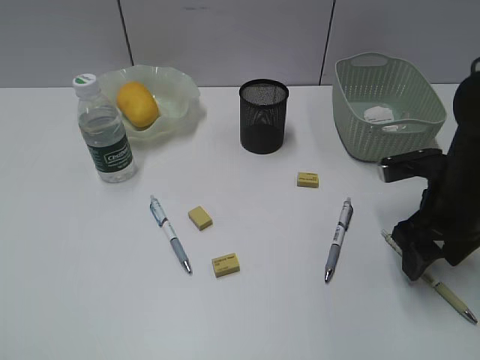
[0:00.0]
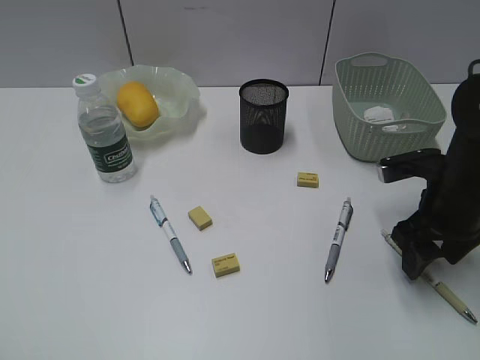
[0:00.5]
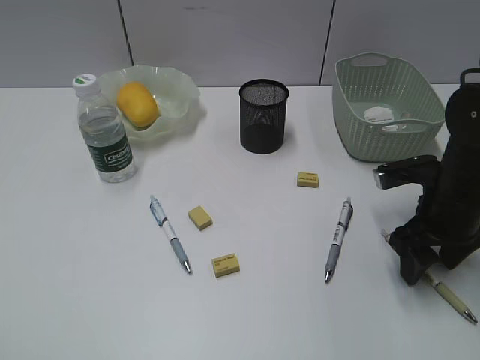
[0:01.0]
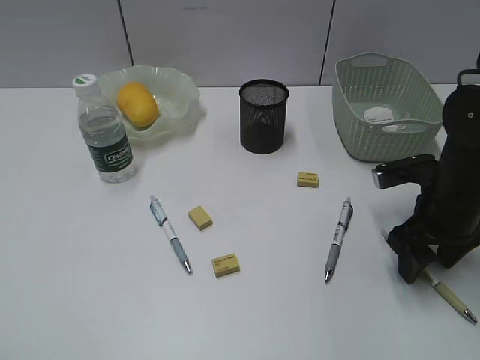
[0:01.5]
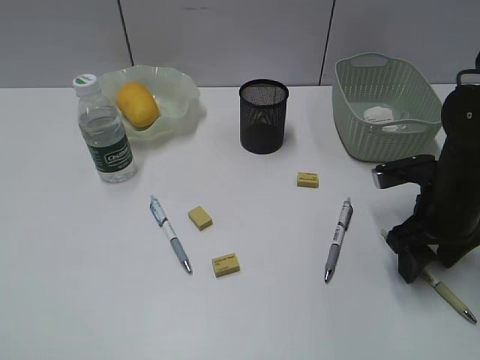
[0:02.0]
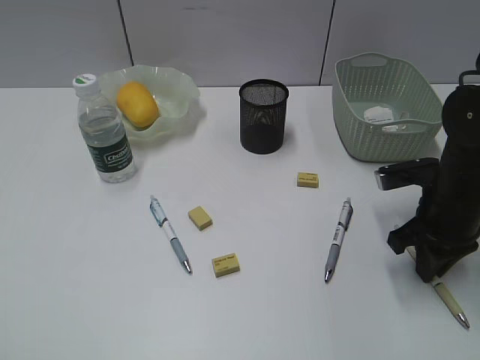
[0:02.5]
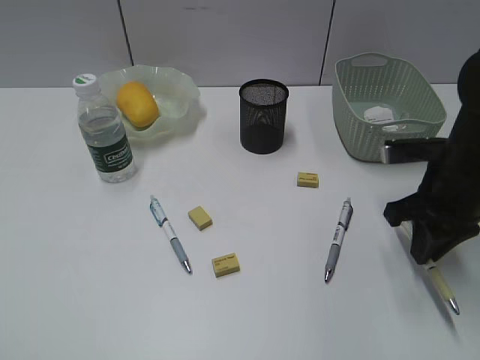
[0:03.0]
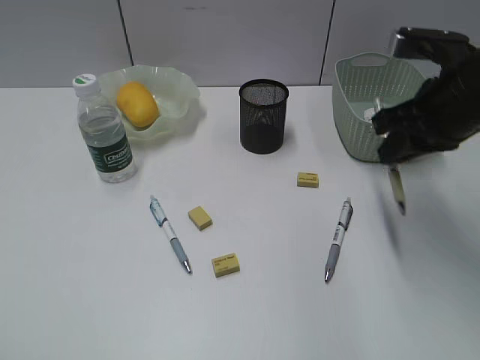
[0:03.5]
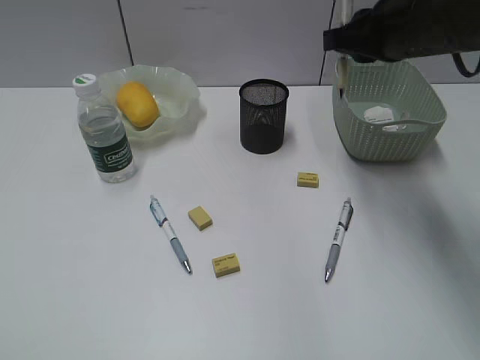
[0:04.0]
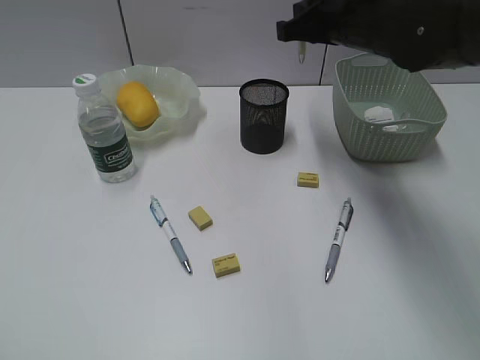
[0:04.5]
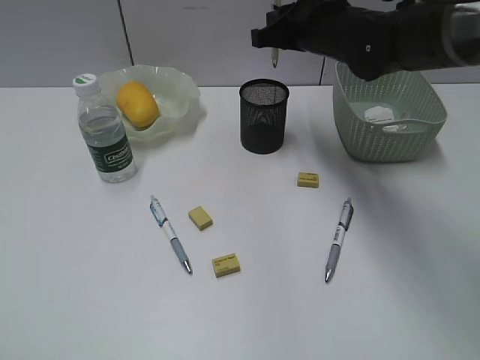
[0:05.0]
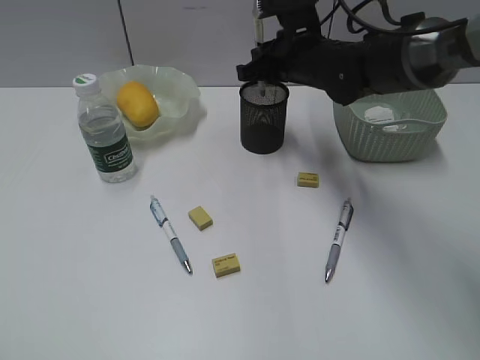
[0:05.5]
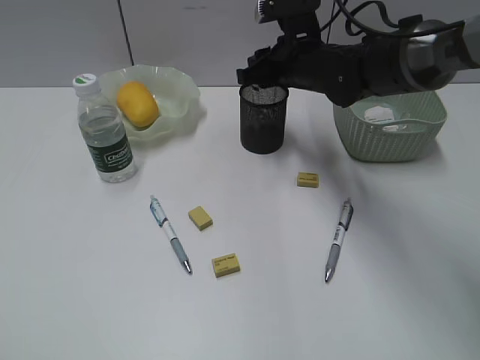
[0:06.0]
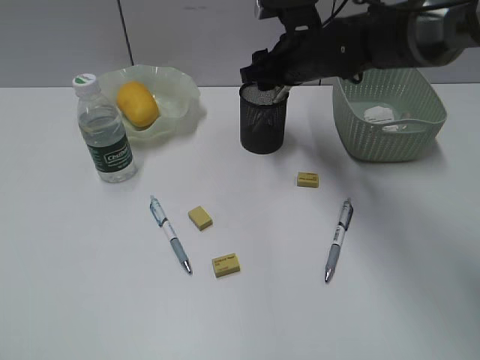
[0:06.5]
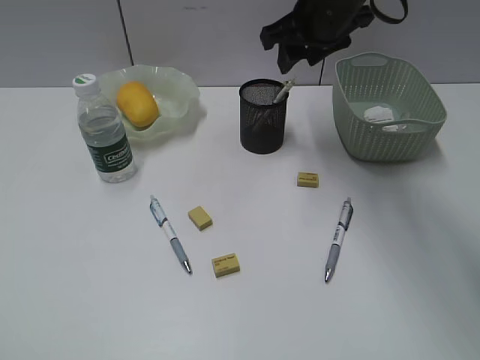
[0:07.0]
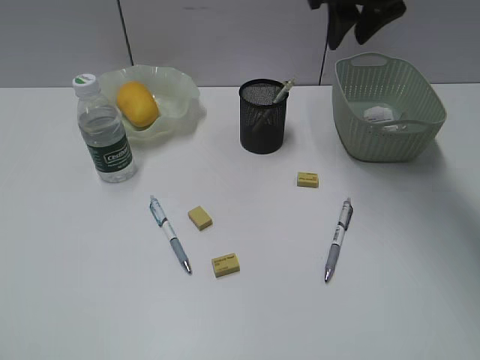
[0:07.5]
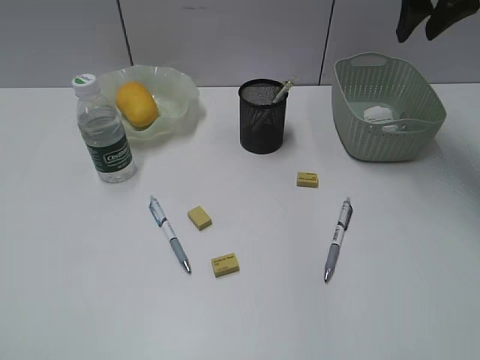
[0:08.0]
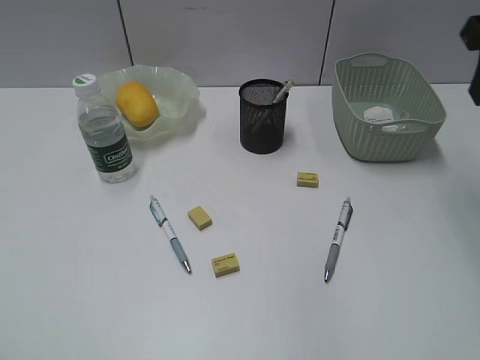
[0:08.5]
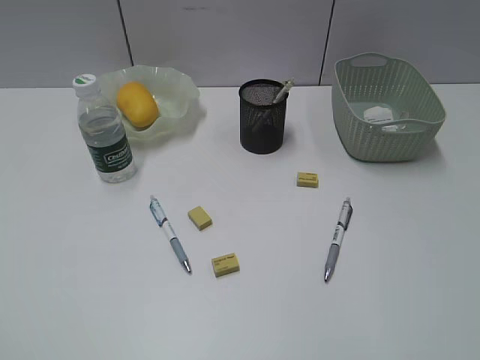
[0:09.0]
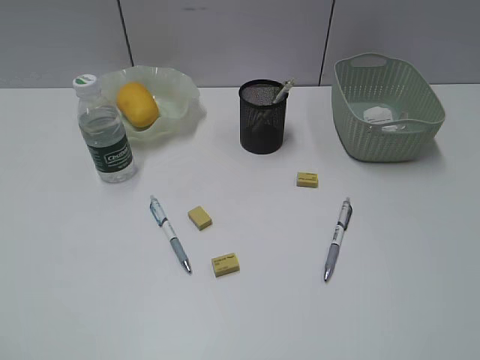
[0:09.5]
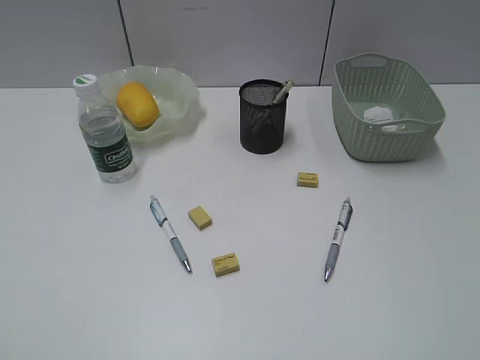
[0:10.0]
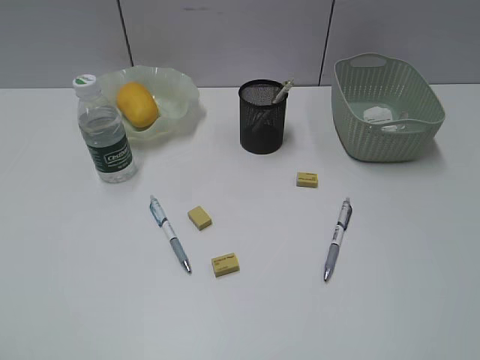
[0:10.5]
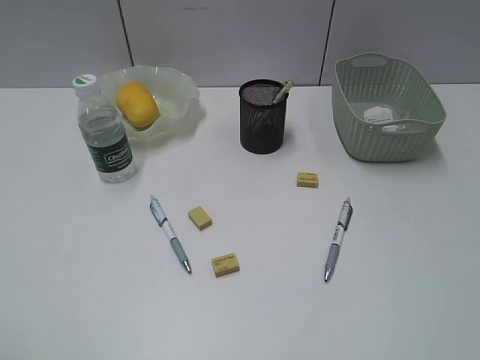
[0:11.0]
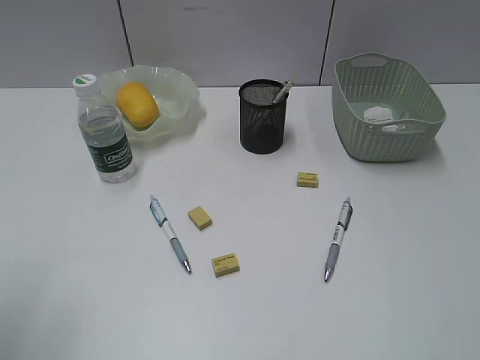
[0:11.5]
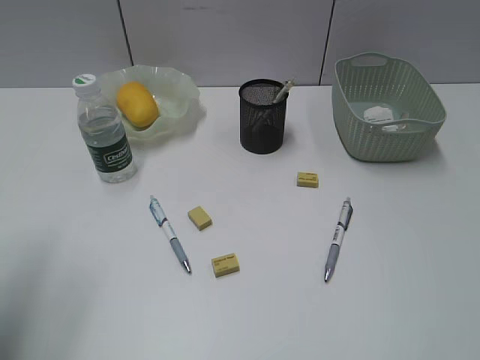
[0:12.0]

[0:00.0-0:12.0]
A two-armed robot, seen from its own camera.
Step, 0:00.0 to 0:02.5: Grasp the yellow pen with right gripper.
Step, 0:03.0 to 0:06.0: Place the yellow pen in pen holder with right gripper.
0:00.0 to 0:02.0: There are only small adjustments of the grippers.
0:02.0 to 0:04.0: The right gripper goes about 15 cm upward, and closes up.
0:04.0 to 0:06.0: The right gripper is displaced downward, forward and to the left by roughly 15 cm, and opens its fingers.
0:06.0 to 0:08.0: The right gripper heads upward and to the right, covering about 20 cm.
0:08.0 to 0:10.0: The right gripper moves backward, approximately 50 cm.
0:10.0 to 0:12.0: The left gripper shifts about 20 cm forward, and opens its fingers.

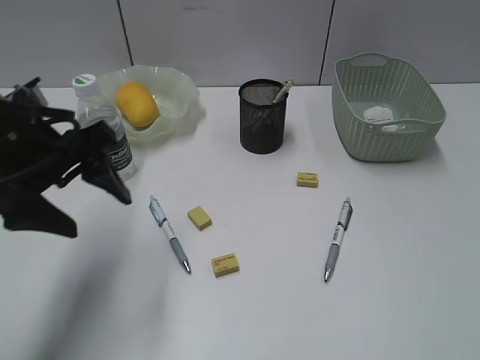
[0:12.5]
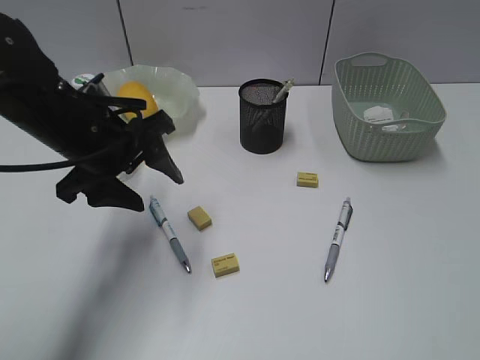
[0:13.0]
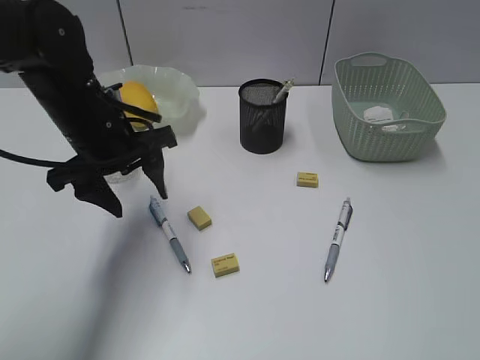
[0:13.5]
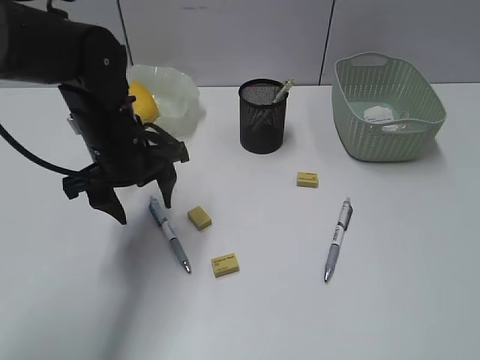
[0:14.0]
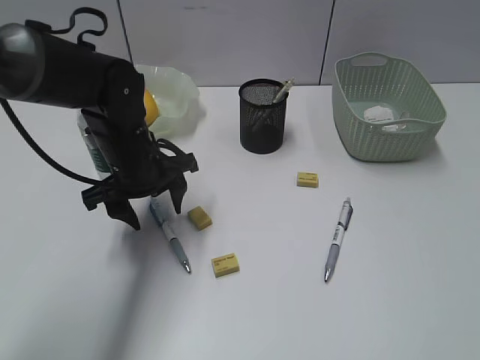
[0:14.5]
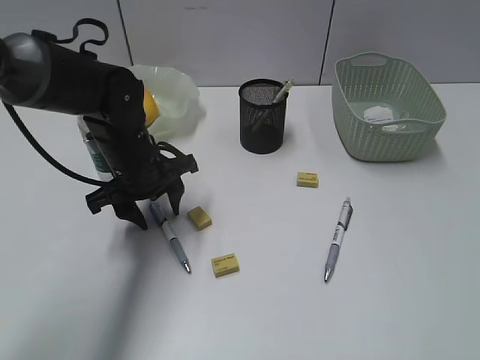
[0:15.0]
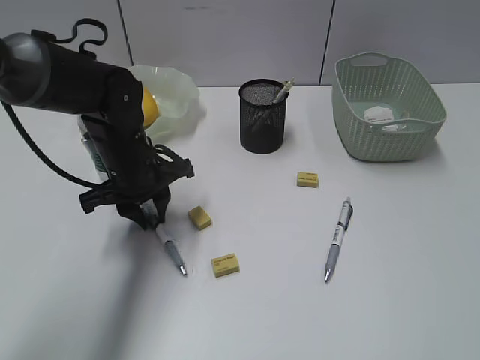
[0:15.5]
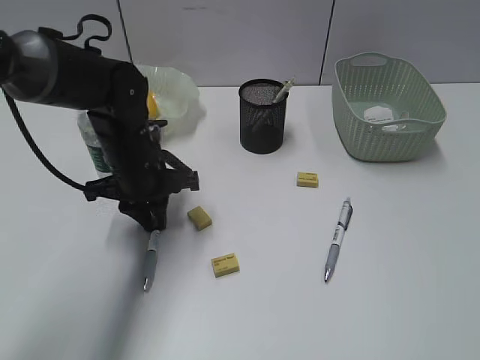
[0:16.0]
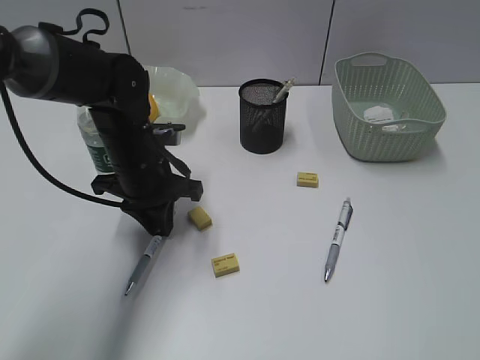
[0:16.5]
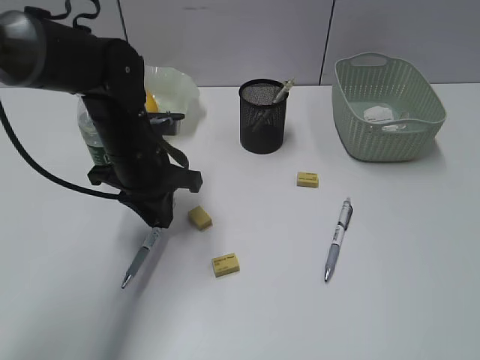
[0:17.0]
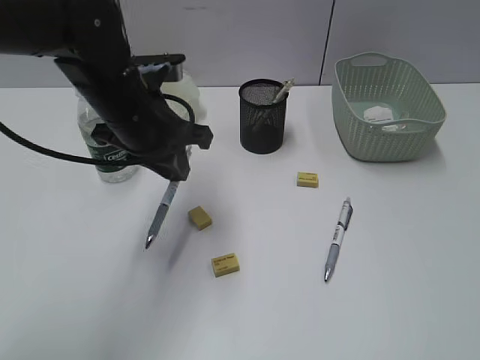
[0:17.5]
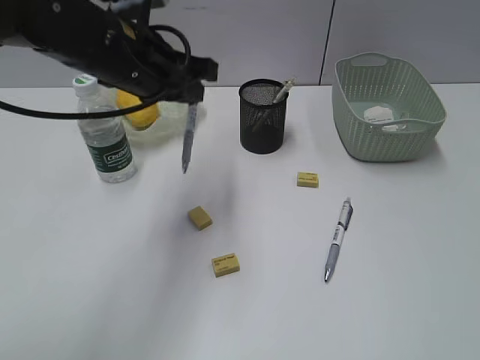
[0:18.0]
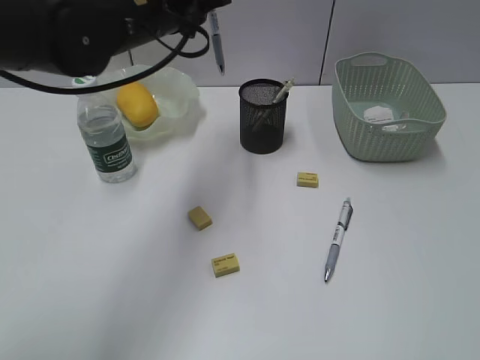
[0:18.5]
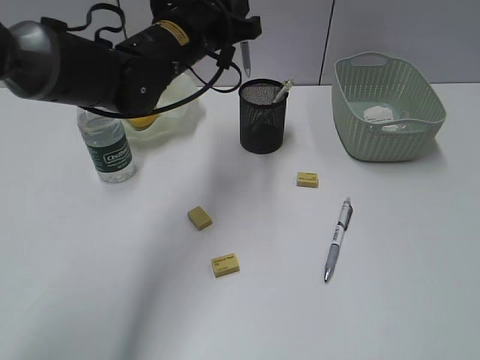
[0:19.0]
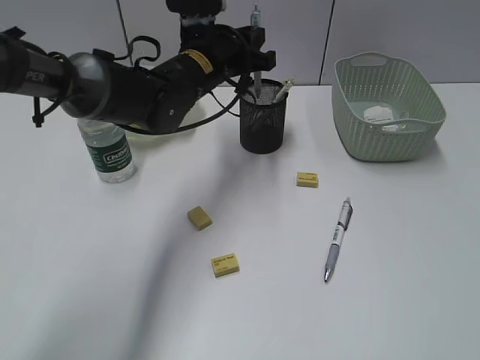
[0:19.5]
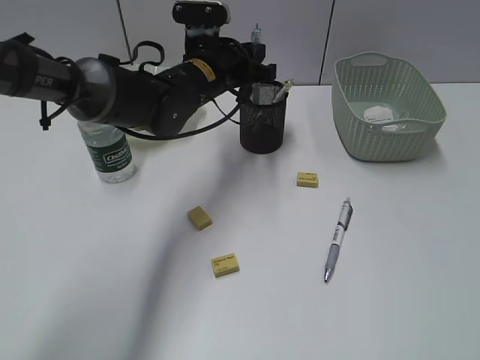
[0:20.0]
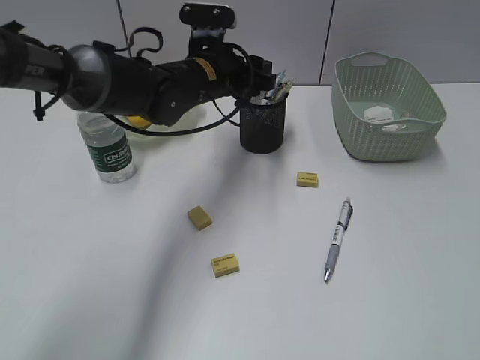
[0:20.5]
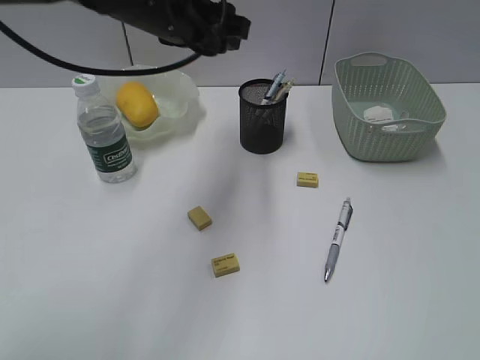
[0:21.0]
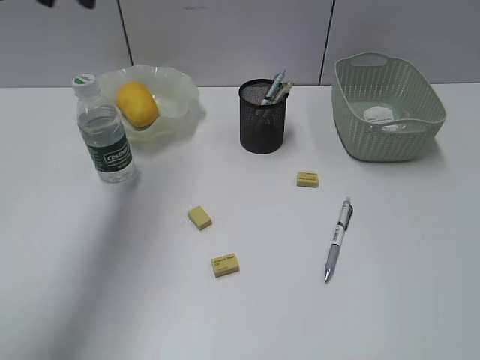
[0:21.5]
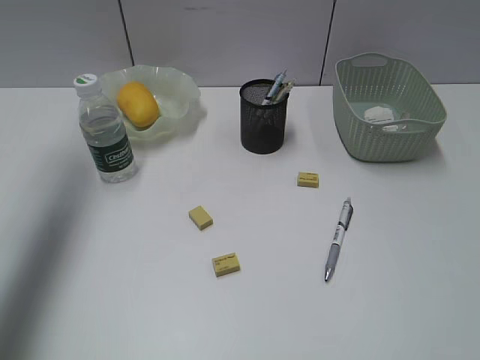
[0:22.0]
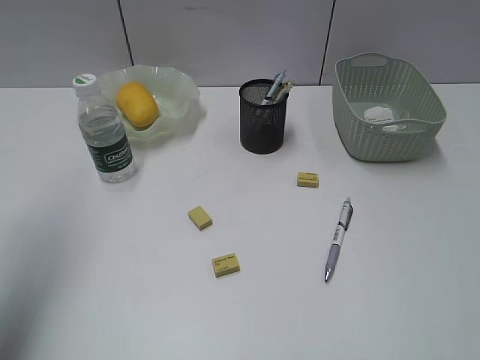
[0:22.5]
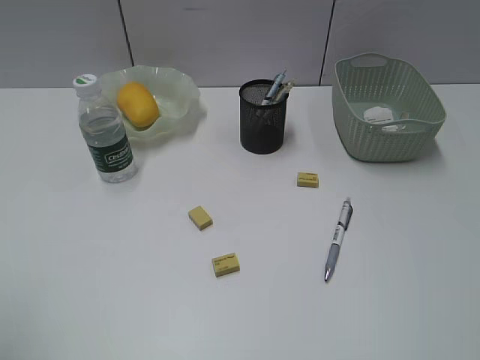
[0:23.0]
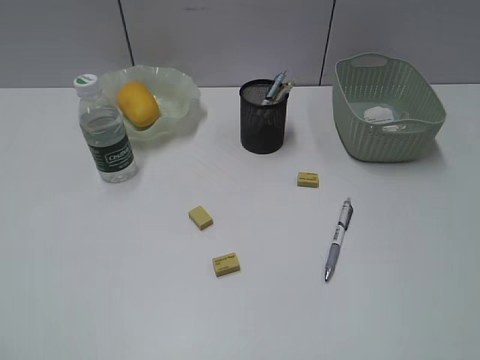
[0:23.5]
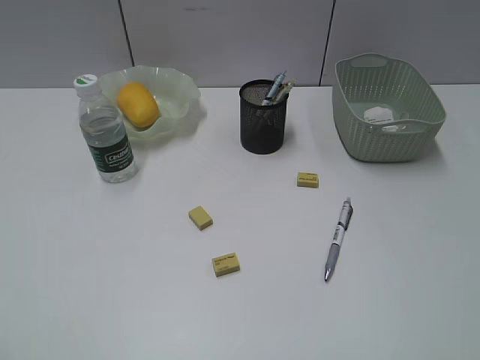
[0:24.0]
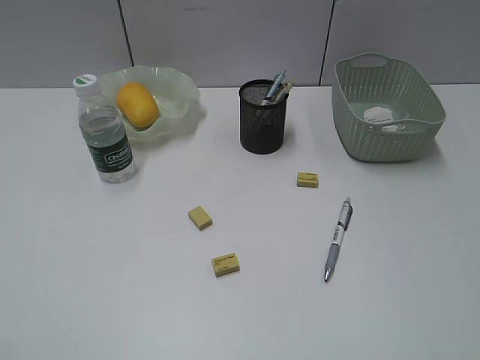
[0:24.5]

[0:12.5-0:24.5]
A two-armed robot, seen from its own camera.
Step, 0:12.5 to 0:16.5: Grasp the blue pen with left gripper.
Step, 0:17.0 to 0:20.0: Place the blue pen in pen holder with left gripper.
0:12.5 to 0:14.5: The left gripper heads downward, forward and to the right, covering some 15 cm.
0:14.5 to 0:16.5: The left gripper closes.
0:16.5 to 0:18.5: The left gripper is displaced upward by approximately 15 cm.
0:18.5 to 0:20.5: The left gripper goes approximately 15 cm downward, forward and to the right, and opens.
0:20.5 to 0:22.5: The left gripper goes some 40 cm to the left, backward and upward.
0:22.5 to 0:24.5: The left gripper shifts about 25 cm backward.

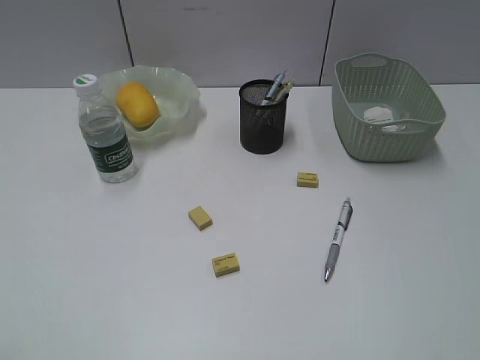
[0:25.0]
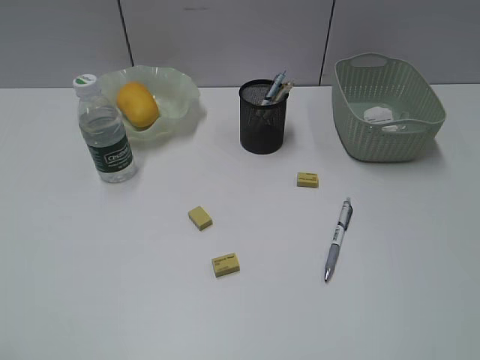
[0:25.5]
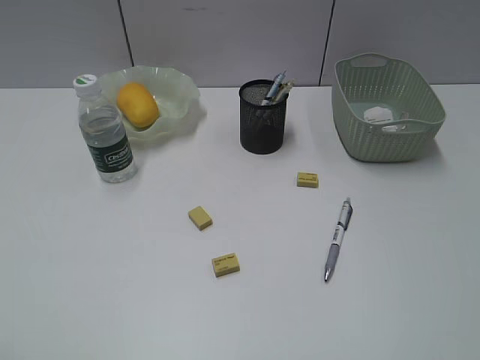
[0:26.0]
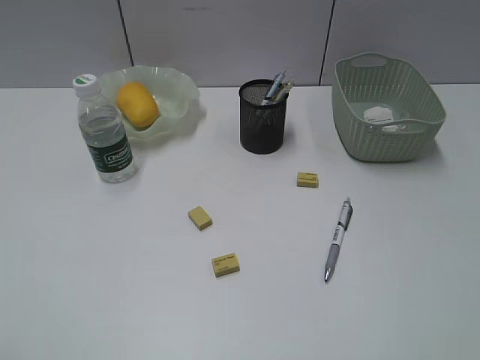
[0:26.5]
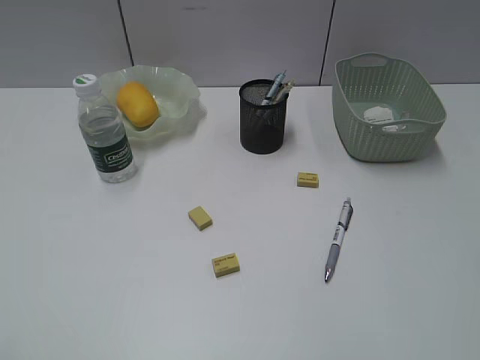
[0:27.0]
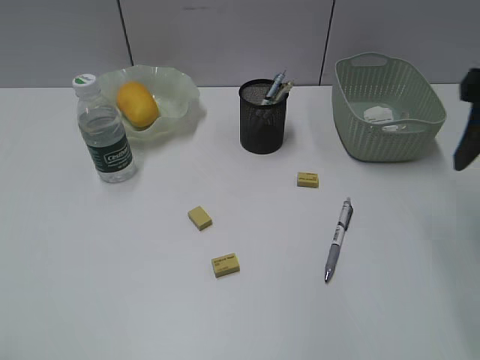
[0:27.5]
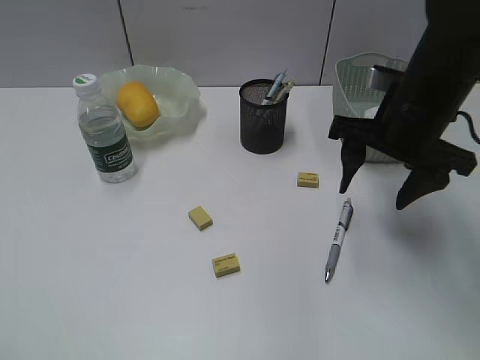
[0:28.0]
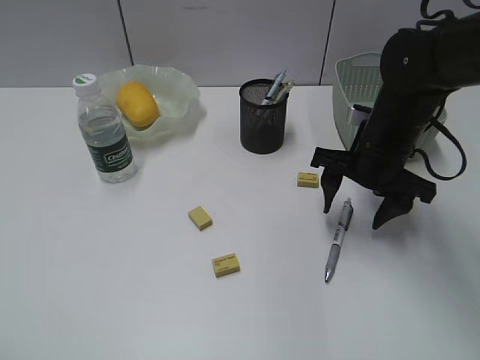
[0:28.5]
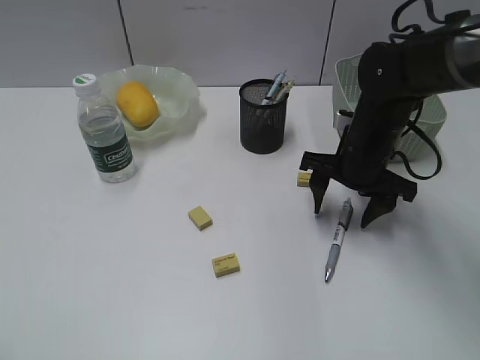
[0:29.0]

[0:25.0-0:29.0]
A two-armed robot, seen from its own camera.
0:27.0 to 0:29.0: The right gripper goes some 35 cm downward, forward and to the left.
